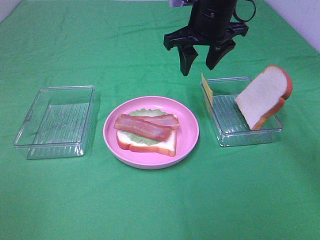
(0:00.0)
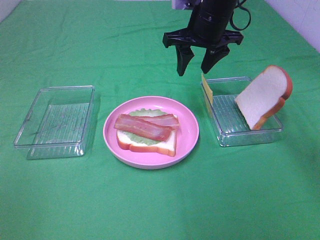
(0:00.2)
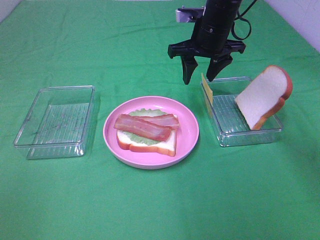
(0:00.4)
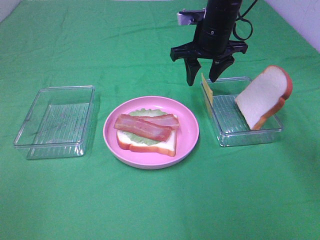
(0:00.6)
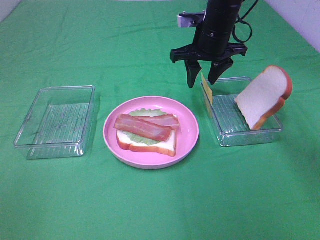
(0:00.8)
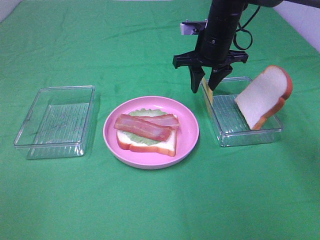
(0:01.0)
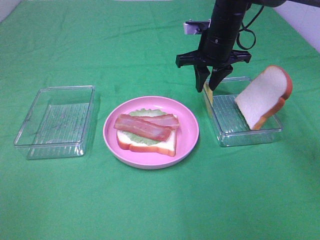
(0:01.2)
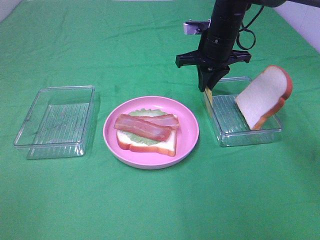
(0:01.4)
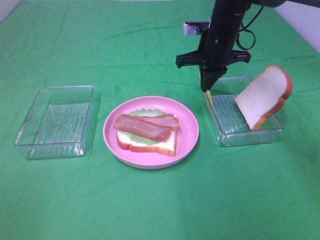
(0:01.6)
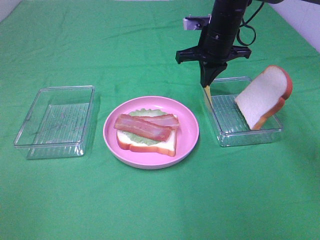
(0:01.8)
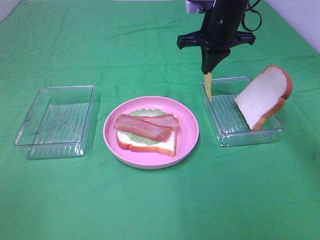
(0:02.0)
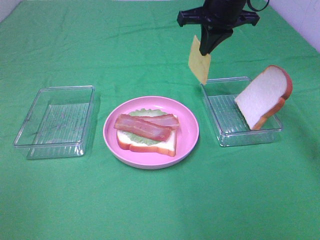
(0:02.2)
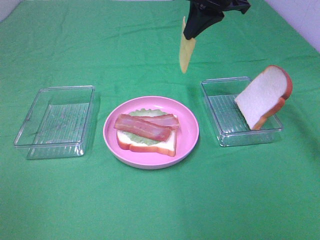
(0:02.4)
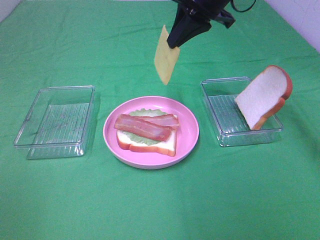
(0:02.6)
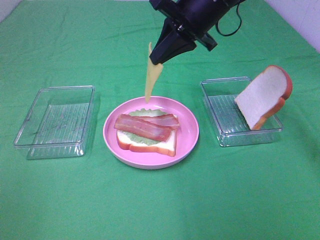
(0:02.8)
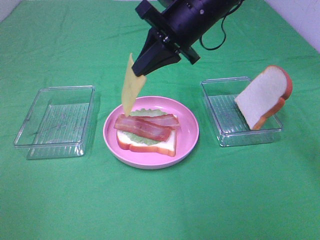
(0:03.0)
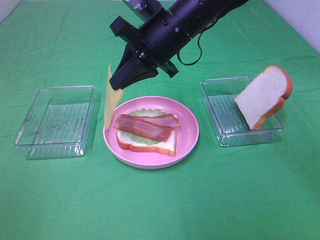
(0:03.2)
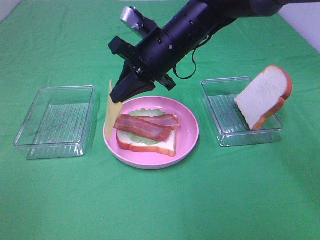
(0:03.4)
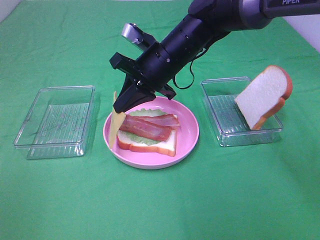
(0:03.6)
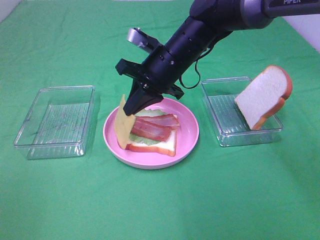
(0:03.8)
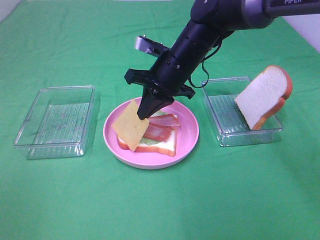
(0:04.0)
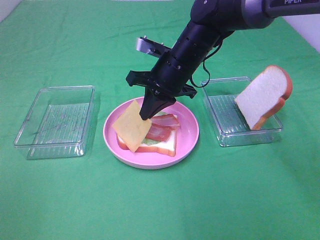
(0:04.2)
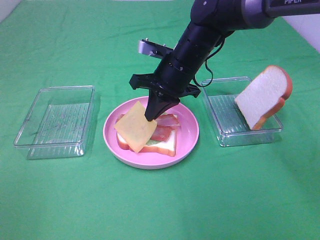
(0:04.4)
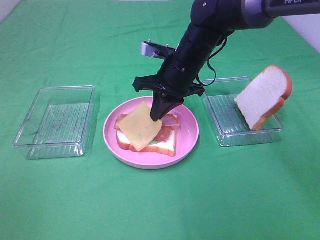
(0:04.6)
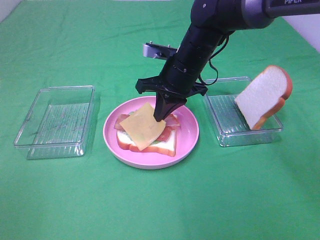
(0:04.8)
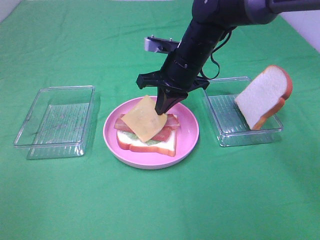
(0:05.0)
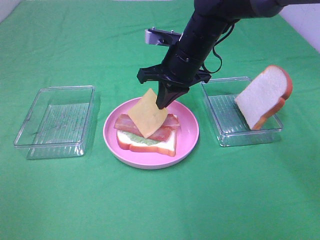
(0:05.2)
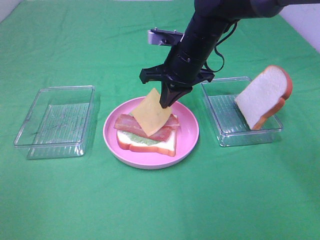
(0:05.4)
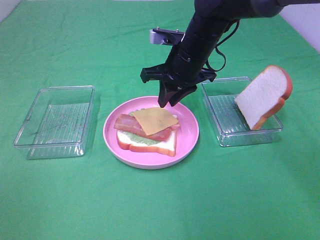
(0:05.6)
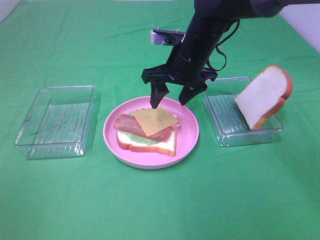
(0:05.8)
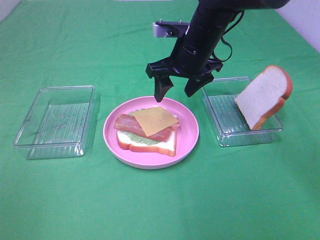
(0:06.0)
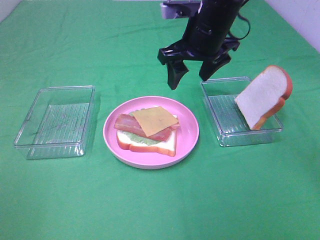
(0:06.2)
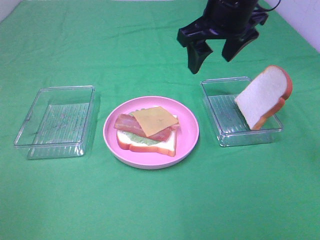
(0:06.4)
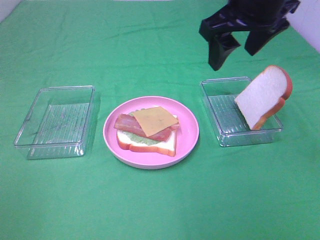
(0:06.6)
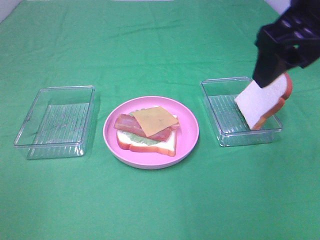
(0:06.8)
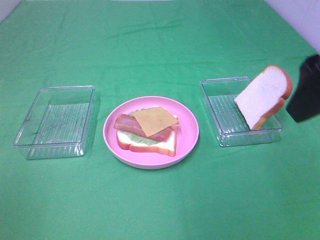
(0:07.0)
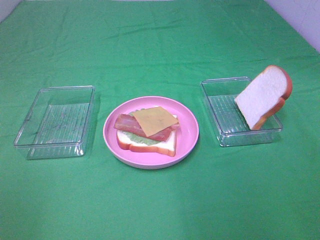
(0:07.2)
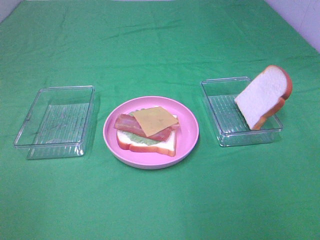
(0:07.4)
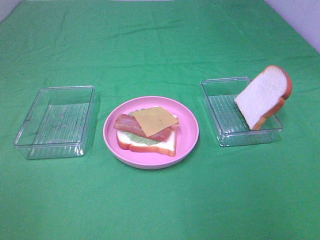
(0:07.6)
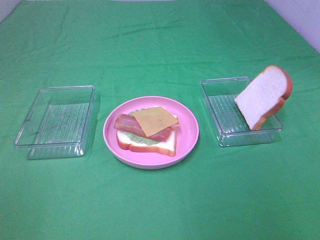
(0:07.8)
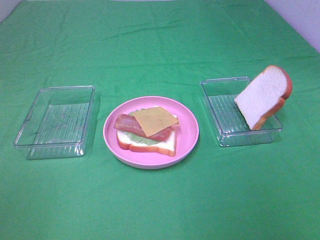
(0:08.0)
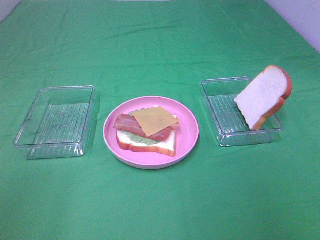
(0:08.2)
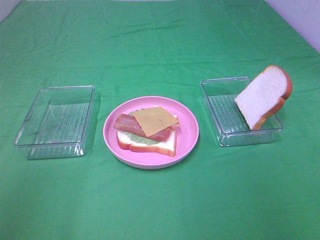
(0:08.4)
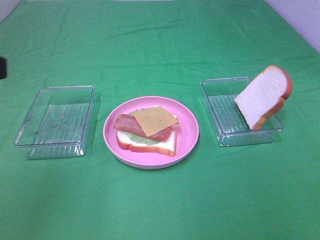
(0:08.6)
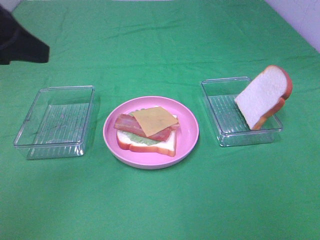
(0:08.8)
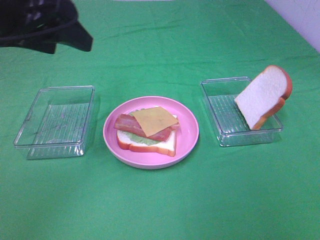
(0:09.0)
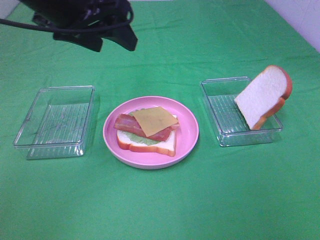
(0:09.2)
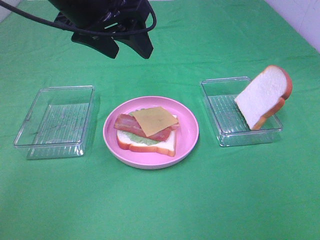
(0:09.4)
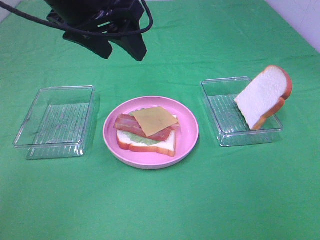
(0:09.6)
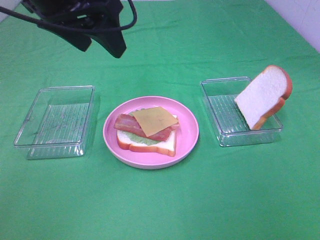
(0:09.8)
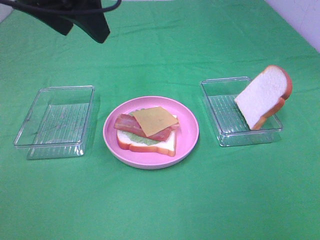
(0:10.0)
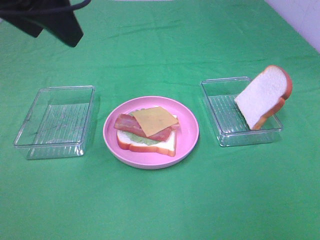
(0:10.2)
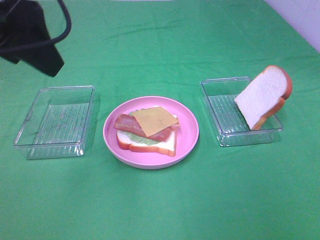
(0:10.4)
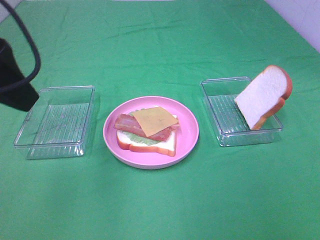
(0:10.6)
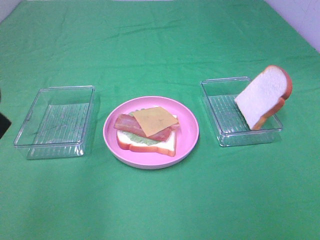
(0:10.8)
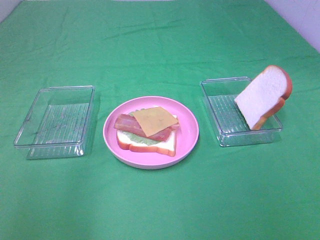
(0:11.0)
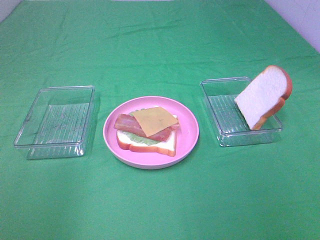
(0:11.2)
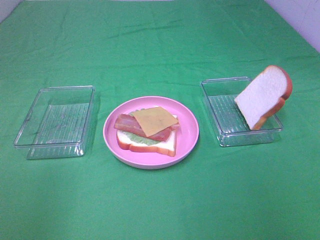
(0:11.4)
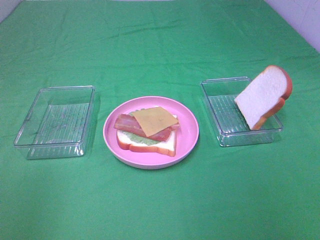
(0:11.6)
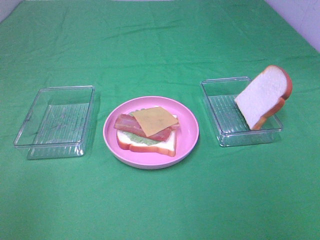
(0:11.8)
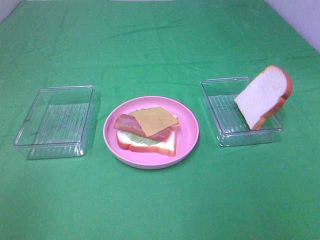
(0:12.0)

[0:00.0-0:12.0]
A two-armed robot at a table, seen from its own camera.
Task of the whole recording: Make sandwiches.
Step, 0:02.0 to 0:06.0: Right hand:place the cheese slice on top of the bacon.
0:00.0 to 0:01.6: The right gripper goes approximately 5 cm downward, and closes up.
0:01.6 to 0:03.0: The right gripper moves backward, upward and to the left, approximately 15 cm.
0:03.0 to 0:04.4: The right gripper goes about 10 cm downward.
0:04.4 to 0:06.0: The right gripper opens up.
0:06.0 to 0:07.6: The right gripper travels backward and to the right by roughly 40 cm.
0:07.6 to 0:09.0: The right gripper shifts by about 5 cm. The left gripper travels forward and to the right by about 30 cm.
0:09.0 to 0:10.4: The left gripper goes approximately 5 cm backward.
0:10.4 to 0:12.0: The left gripper moves backward and to the left, approximately 25 cm.

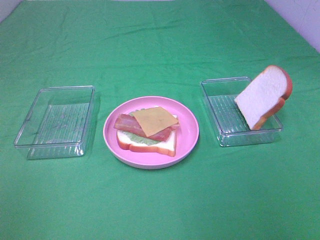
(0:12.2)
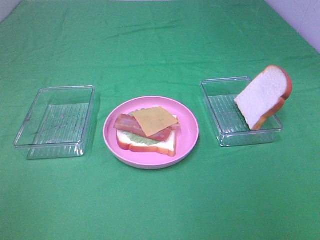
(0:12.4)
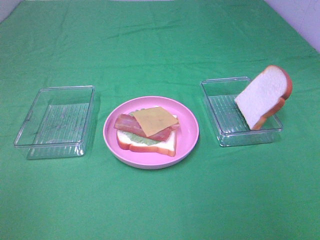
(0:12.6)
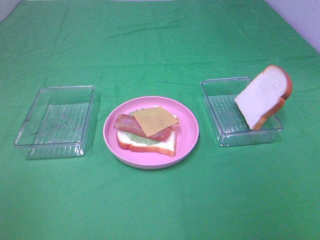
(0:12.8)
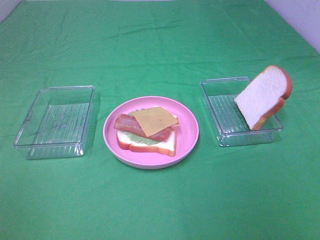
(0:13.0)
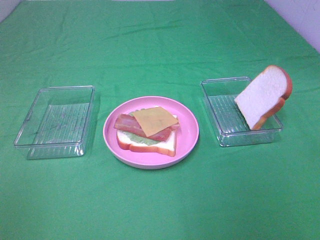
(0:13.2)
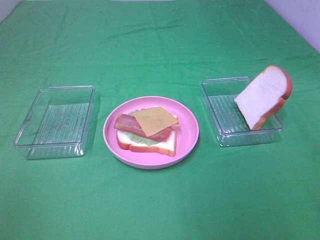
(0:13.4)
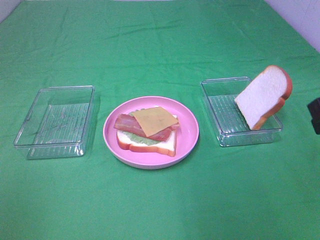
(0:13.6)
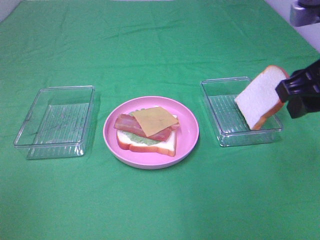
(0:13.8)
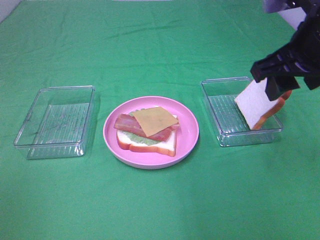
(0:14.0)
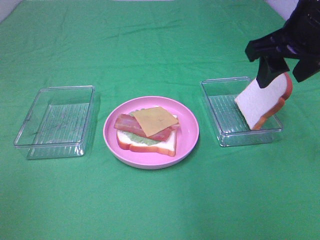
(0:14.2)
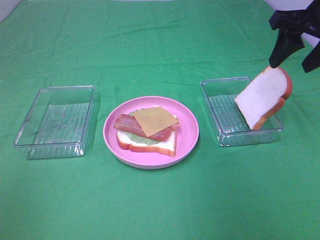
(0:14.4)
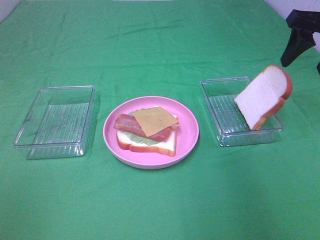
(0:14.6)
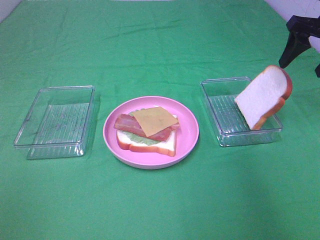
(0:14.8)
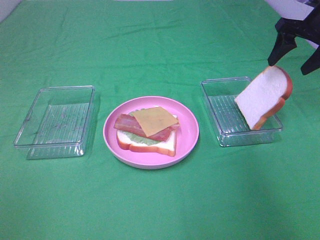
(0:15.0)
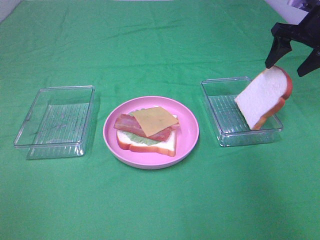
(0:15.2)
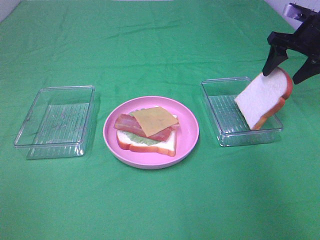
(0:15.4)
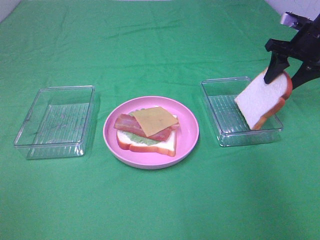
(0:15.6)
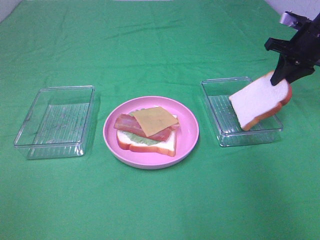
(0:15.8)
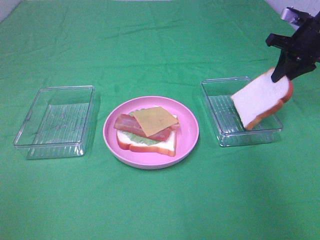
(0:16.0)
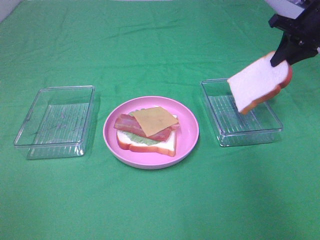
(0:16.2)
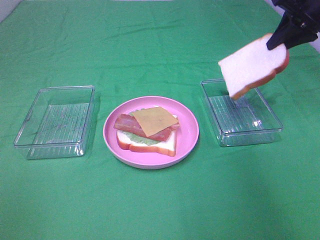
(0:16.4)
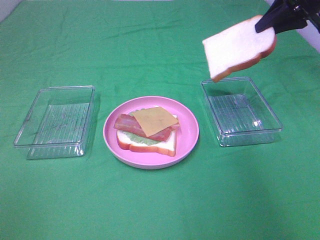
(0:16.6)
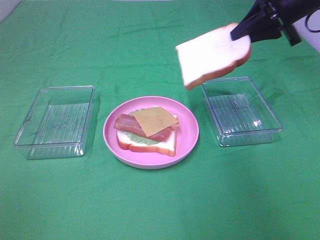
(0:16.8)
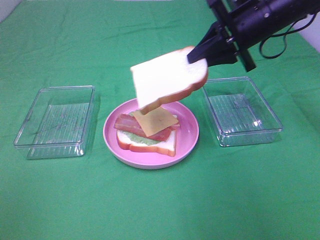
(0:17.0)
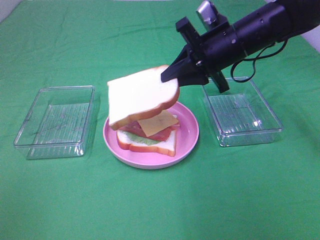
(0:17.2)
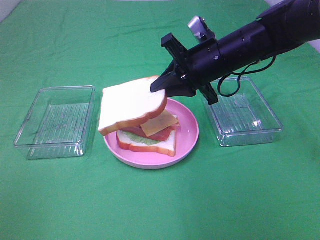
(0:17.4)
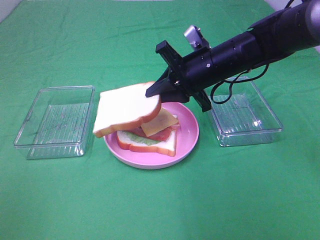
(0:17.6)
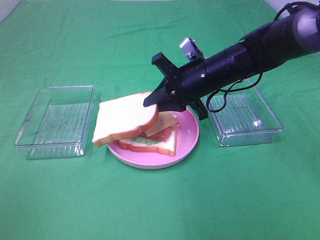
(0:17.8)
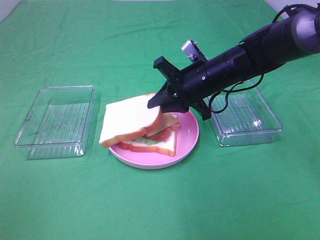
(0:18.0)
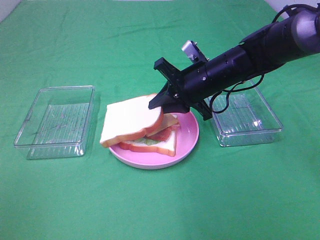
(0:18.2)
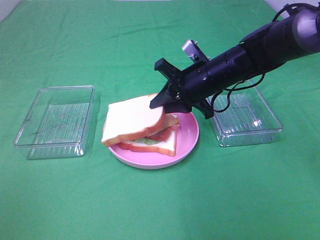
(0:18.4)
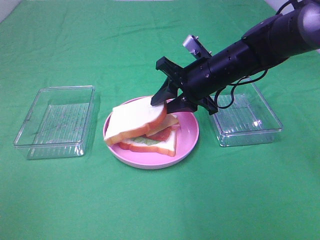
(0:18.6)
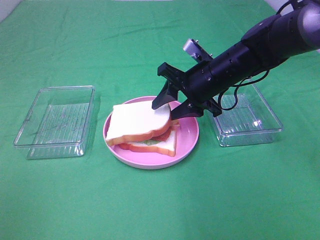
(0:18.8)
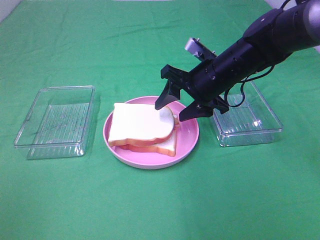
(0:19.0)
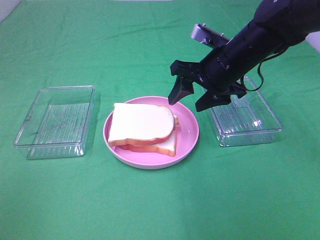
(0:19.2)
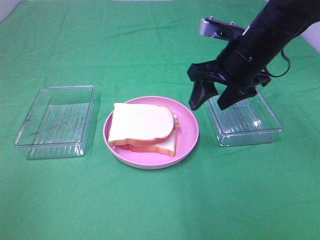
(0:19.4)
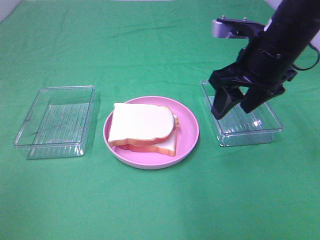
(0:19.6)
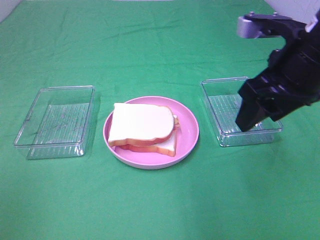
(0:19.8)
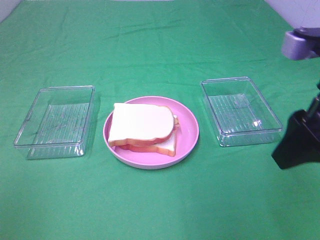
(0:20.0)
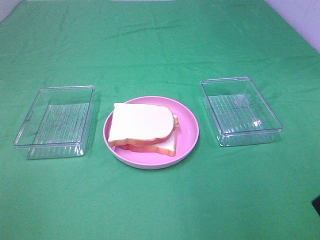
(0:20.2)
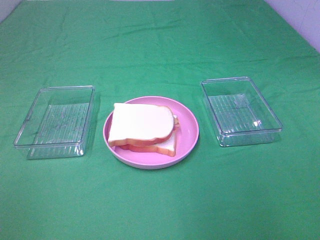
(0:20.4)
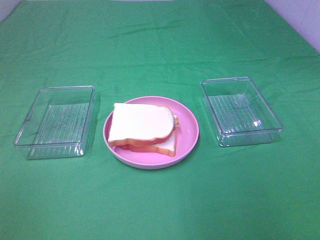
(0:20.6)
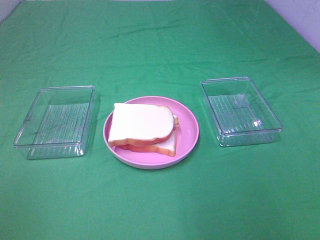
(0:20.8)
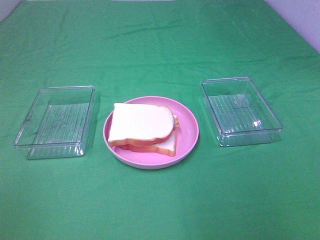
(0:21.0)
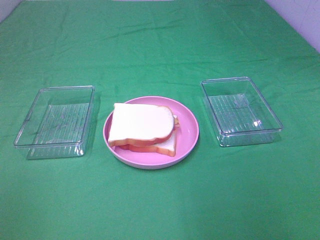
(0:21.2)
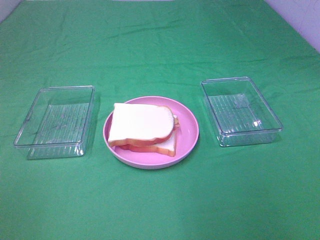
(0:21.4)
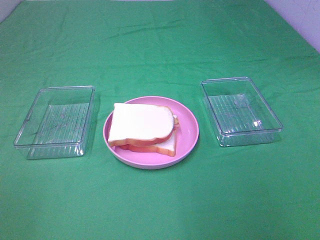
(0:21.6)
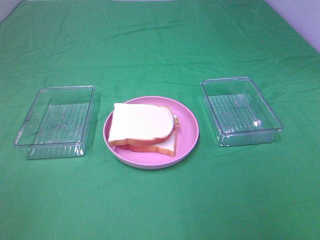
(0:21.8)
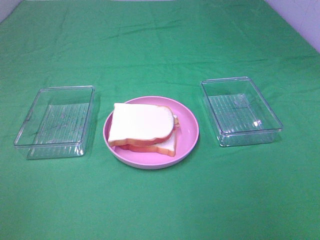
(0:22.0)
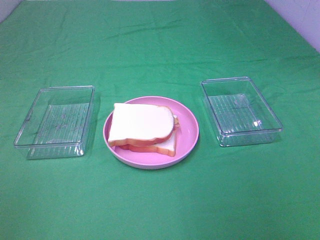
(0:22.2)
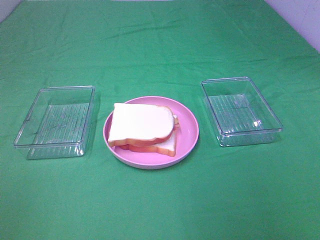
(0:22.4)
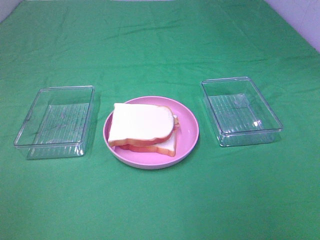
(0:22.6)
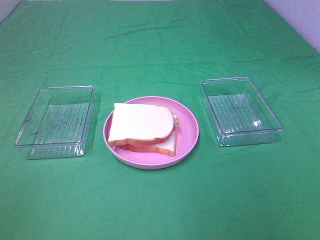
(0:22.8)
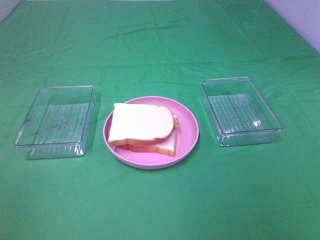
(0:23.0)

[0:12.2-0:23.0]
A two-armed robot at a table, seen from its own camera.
Task of the whole recording: Make sandwiches.
Step, 0:12.2 to 0:15.8: Right hand:grab the bread slice.
Step, 0:16.0 to 0:19.2: Right hand:place the bread slice on the cheese slice.
0:12.2 to 0:13.8: The right gripper heads forward and to the left, covering roughly 25 cm.
0:13.8 to 0:15.2: The right gripper goes about 25 cm forward and to the right.
0:15.2 to 0:16.8: The right gripper goes roughly 10 cm to the left, and closes.
0:16.8 to 0:18.4: The right gripper goes about 20 cm to the left and downward.
0:18.4 to 0:20.0: The right gripper moves backward, upward and to the right, about 25 cm, and opens its fingers.
0:20.0 to 0:21.4: The right gripper goes approximately 15 cm backward.
